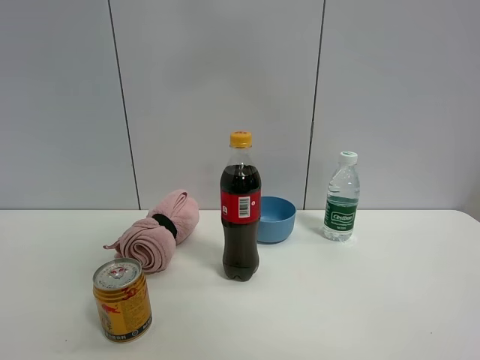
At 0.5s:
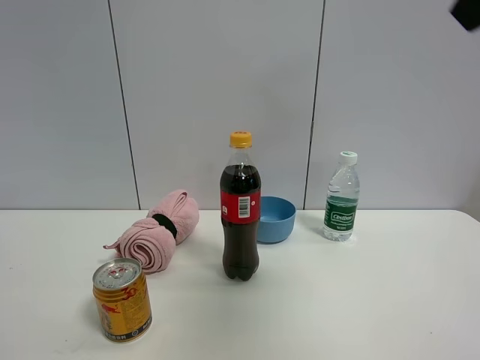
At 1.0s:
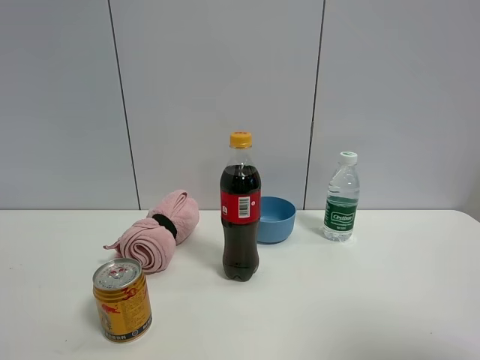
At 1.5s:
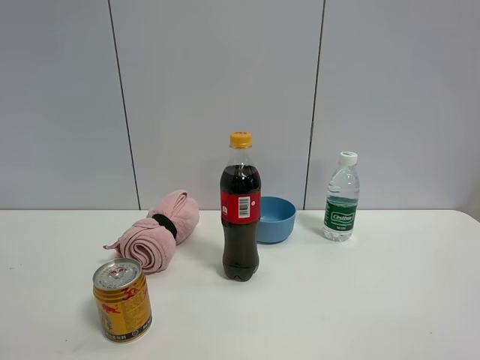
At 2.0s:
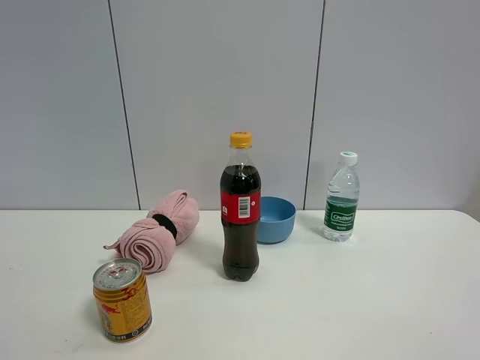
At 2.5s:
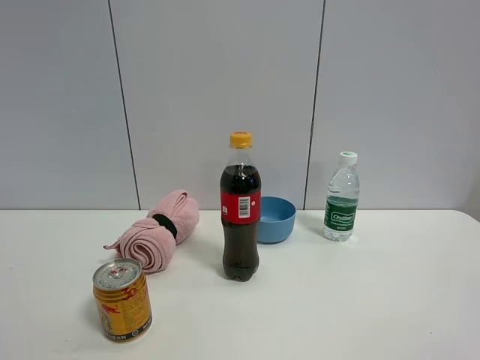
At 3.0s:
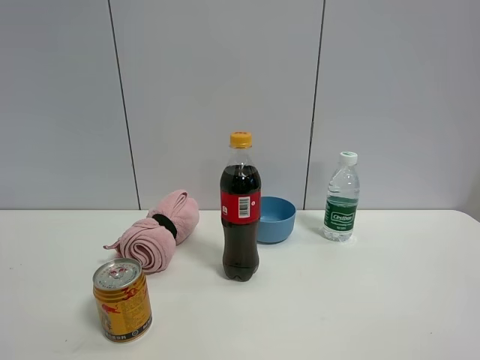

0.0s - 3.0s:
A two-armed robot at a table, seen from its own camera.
Task of the whole recording: the gripper move the object.
0.0s - 1.5s: The right gripper goes some 40 cm downward, to the right and backward.

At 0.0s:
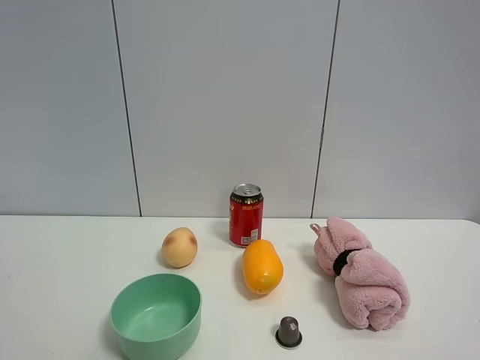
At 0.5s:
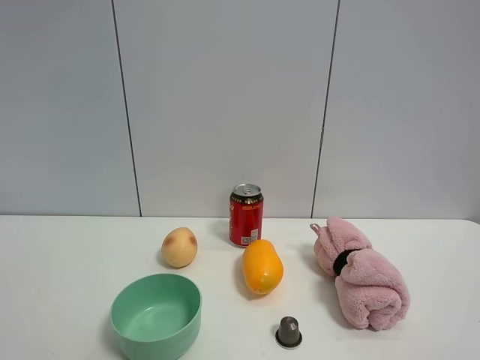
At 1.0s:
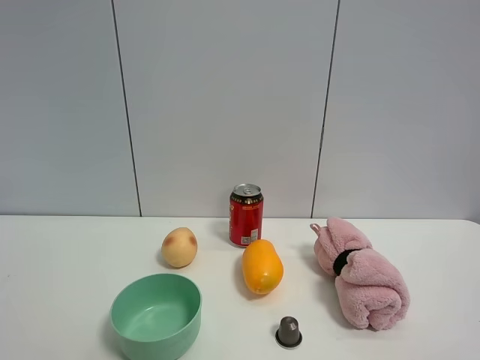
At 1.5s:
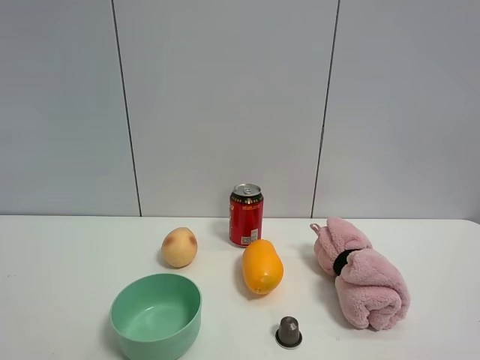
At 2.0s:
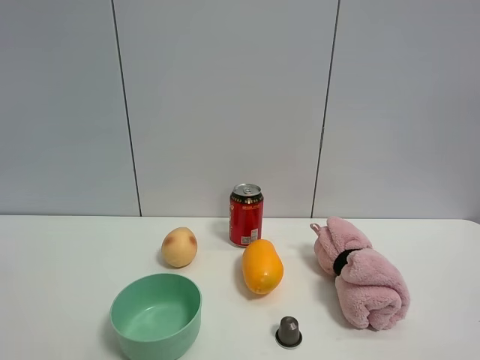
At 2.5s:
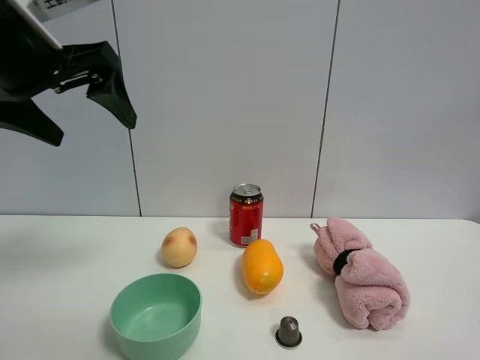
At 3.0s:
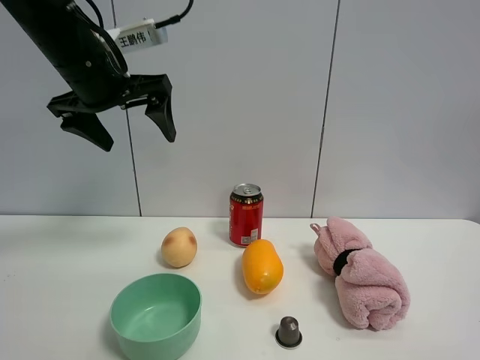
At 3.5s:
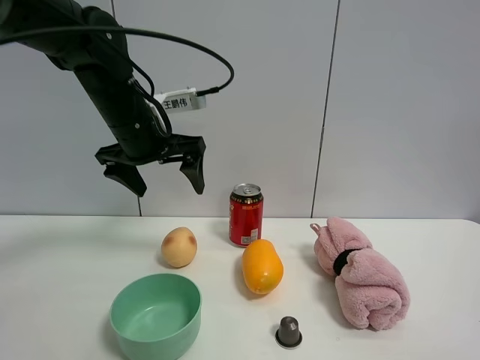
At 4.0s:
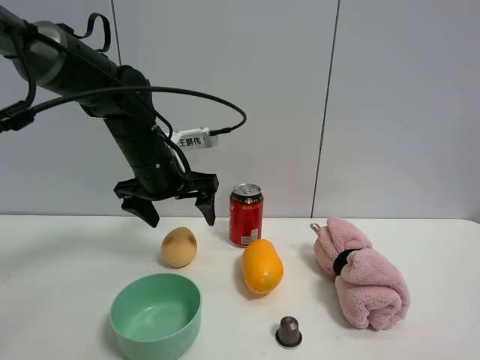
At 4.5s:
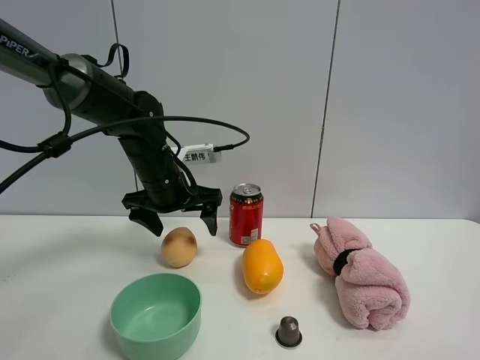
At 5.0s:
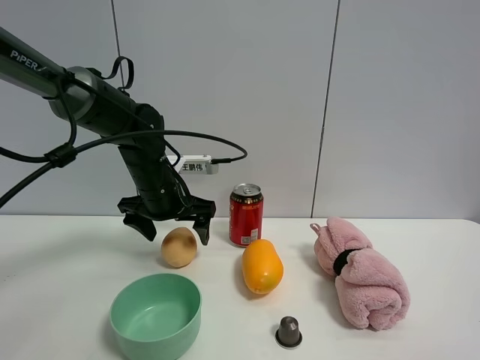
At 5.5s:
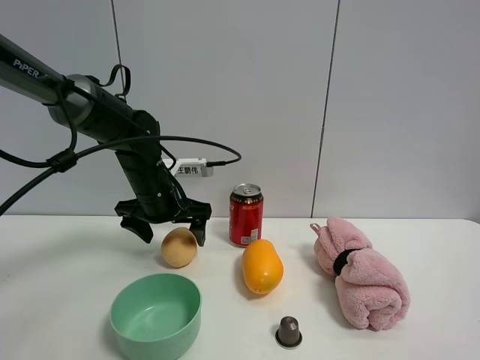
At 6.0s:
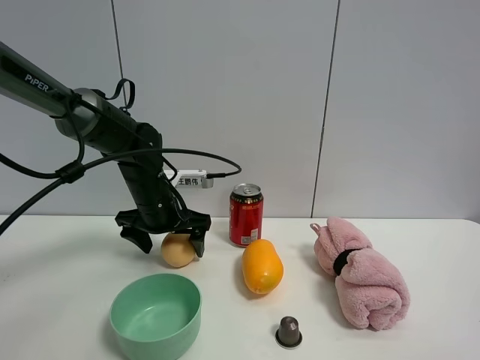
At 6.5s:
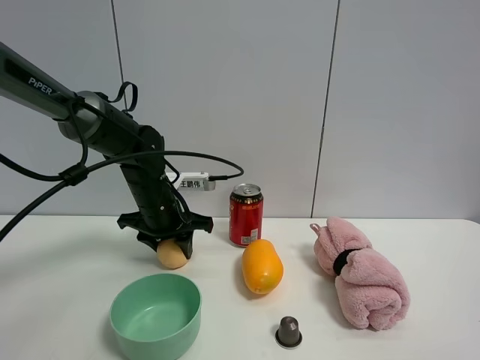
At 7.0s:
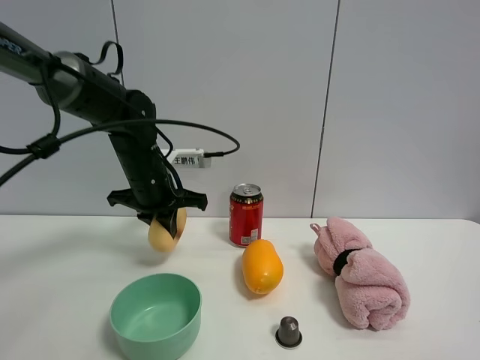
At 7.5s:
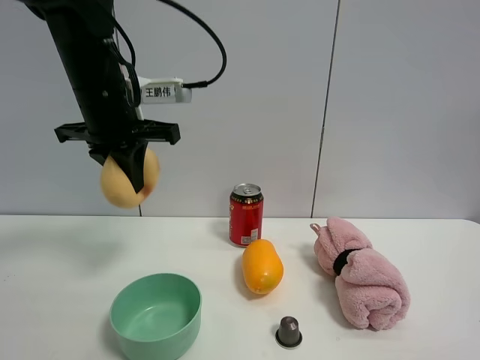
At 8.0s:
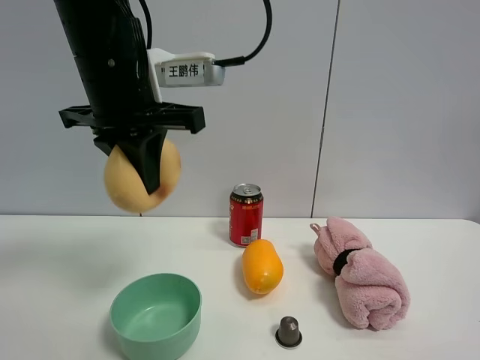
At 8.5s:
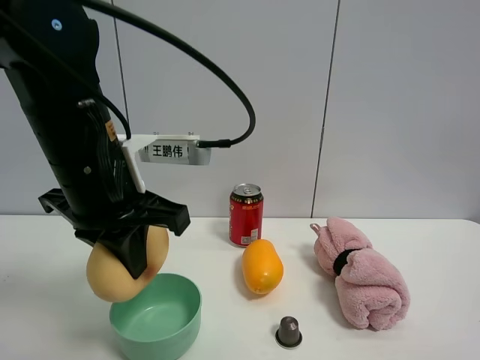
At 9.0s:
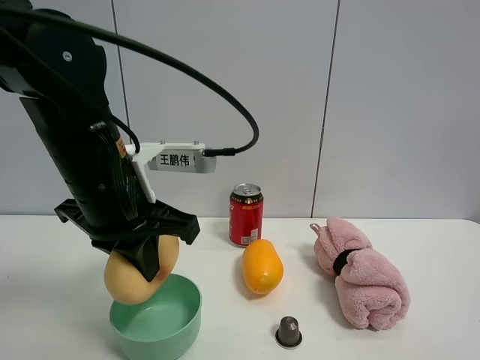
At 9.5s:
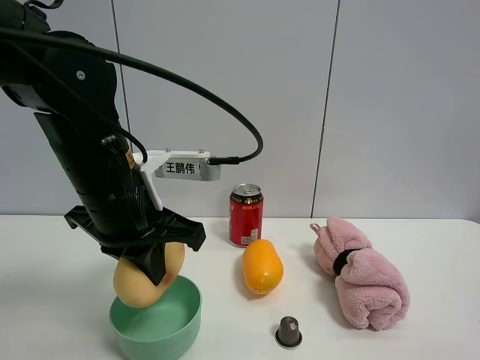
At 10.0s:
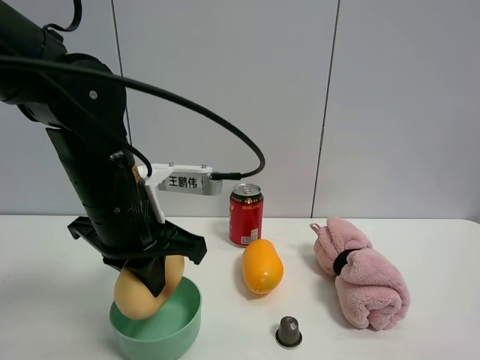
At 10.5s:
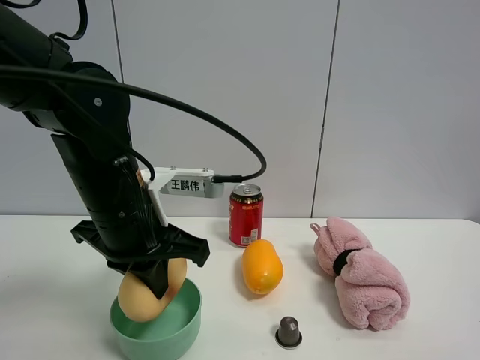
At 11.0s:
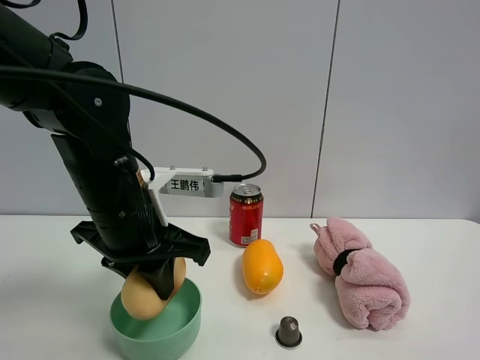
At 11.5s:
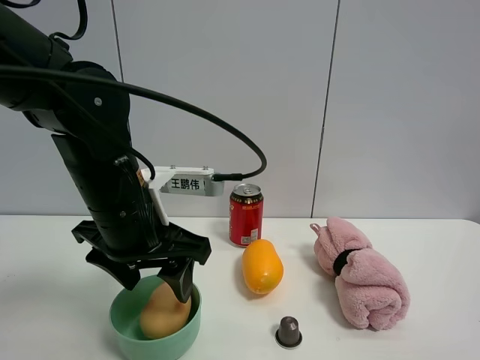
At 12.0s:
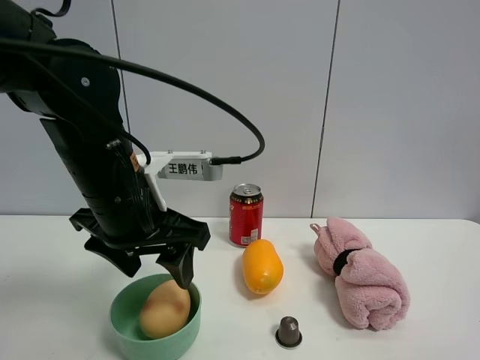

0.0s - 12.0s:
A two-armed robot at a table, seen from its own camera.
Task of the whole recording: the gripper move the object.
Step, 0.0s - 6.5s: Grasp the egg yolk pastry with the left gripper.
Step, 7.0s - 11.0s: Place the egg yolk pastry into the green bowl with the left gripper.
2.0s - 4.0s: The left gripper goes some 35 cm forward, downward and to the right.
4.0s - 6.0s: The left gripper goes about 5 cm downward.
6.0s - 8.0s: The left gripper moves upward and backward, roughly 25 cm, and closes up.
8.0s - 10.0s: The left gripper moves downward, approximately 10 cm.
10.0s - 12.0s: The left gripper opens.

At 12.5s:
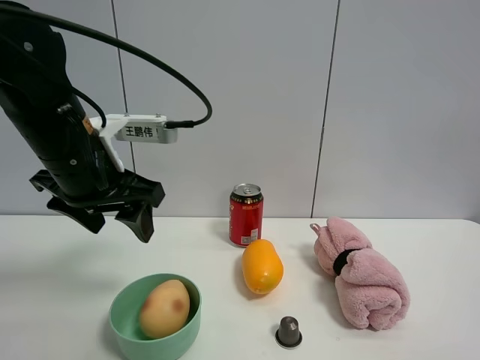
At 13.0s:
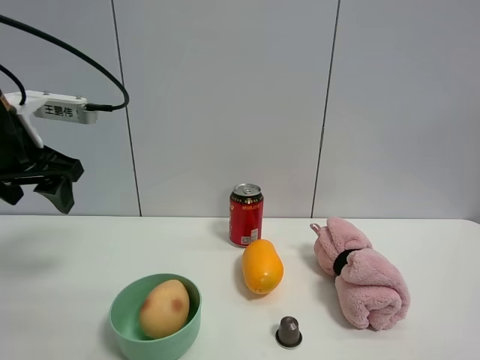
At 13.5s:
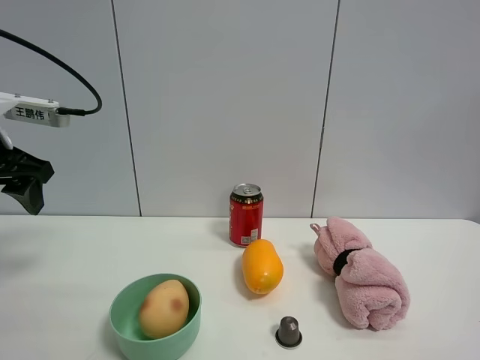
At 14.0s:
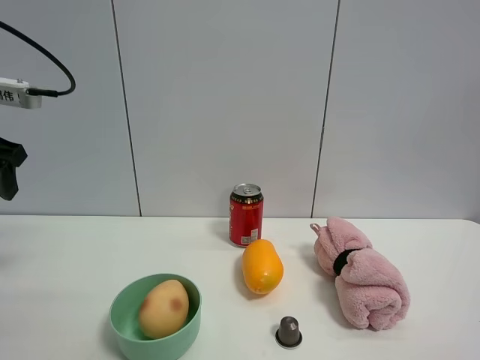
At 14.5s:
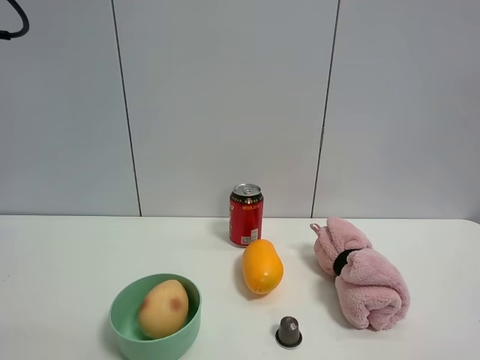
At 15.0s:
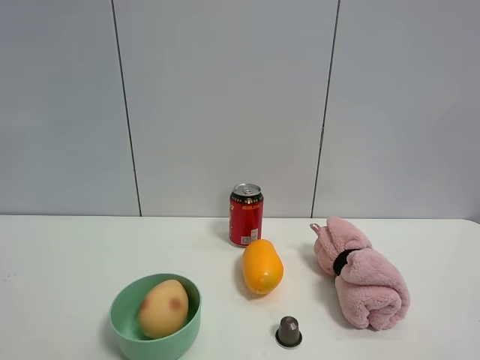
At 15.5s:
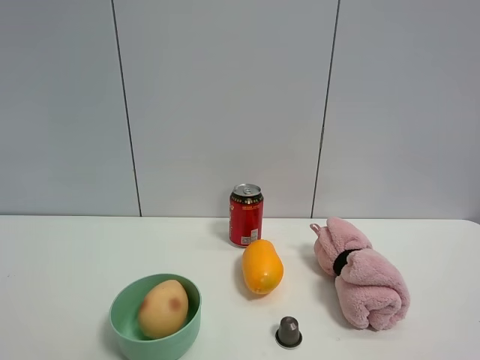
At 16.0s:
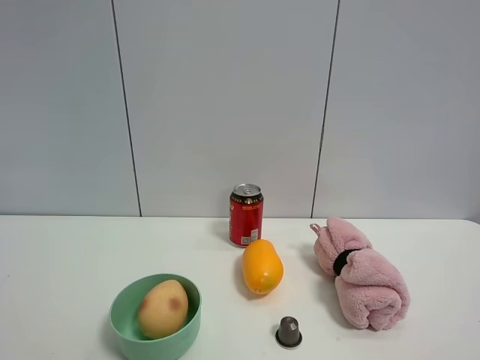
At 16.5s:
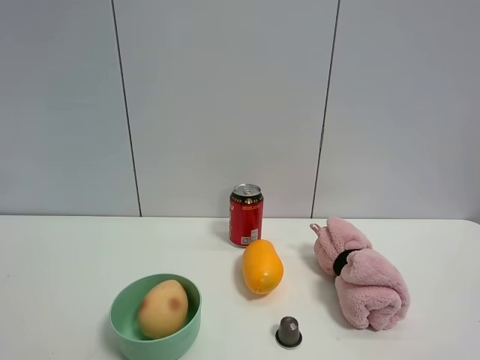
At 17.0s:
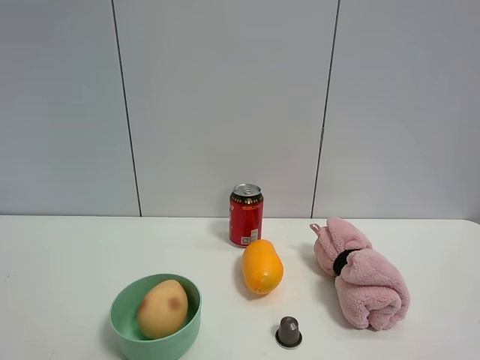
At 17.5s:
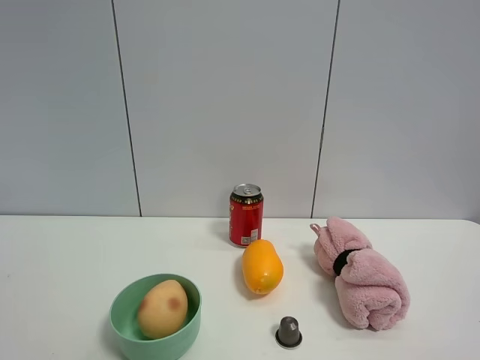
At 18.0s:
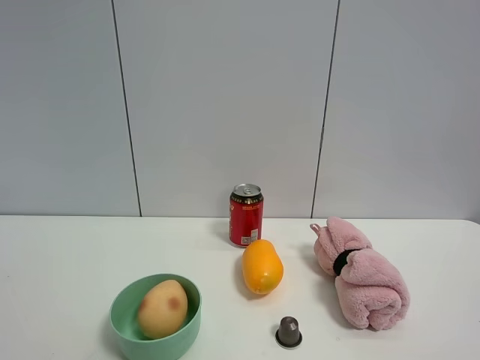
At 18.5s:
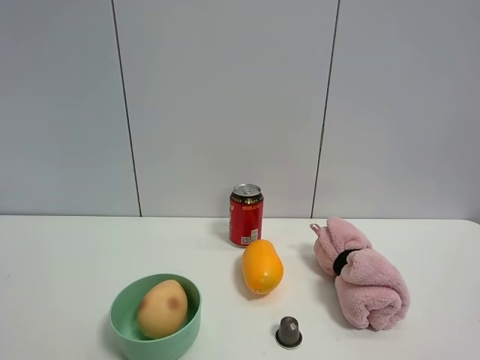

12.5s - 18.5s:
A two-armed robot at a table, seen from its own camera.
Task of the whole recording: the gripper move the object.
12.5s - 14.5s: The left gripper is displaced to the left and upward by about 20 cm.
16.5s - 18.5s: Both grippers stay put.
